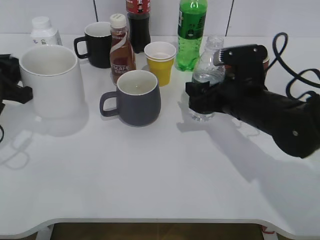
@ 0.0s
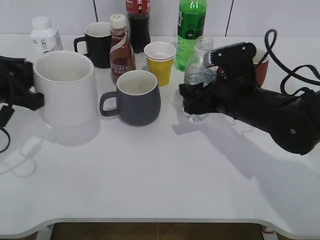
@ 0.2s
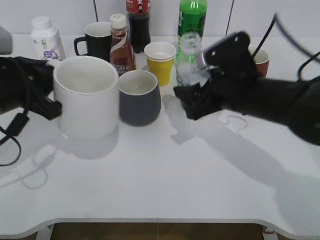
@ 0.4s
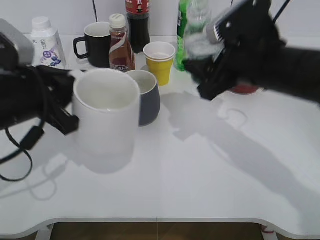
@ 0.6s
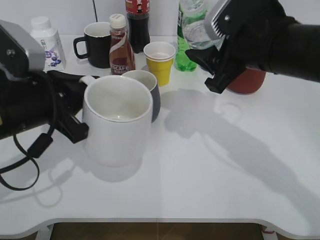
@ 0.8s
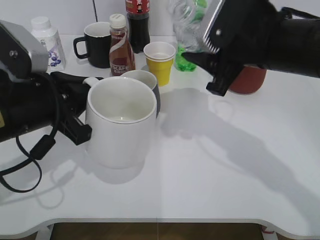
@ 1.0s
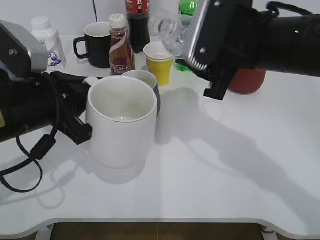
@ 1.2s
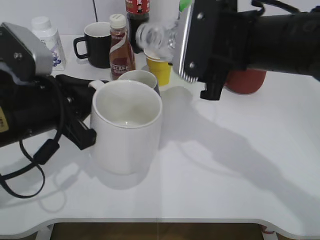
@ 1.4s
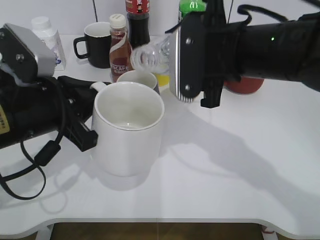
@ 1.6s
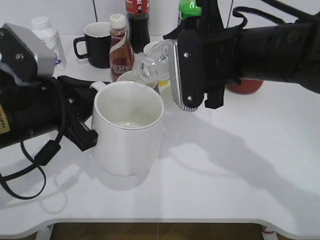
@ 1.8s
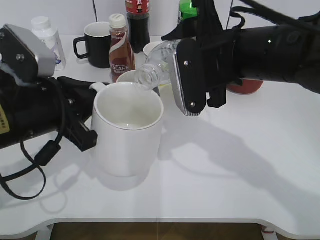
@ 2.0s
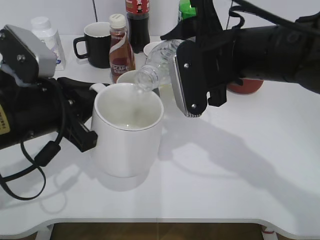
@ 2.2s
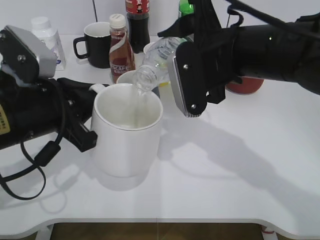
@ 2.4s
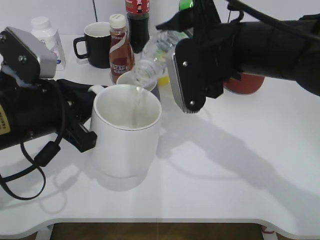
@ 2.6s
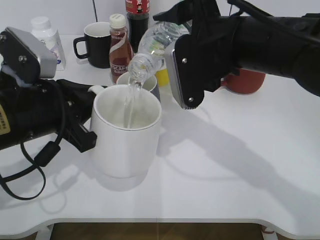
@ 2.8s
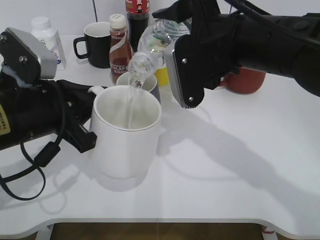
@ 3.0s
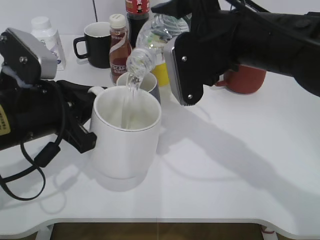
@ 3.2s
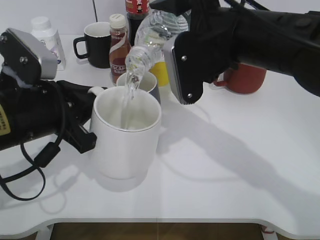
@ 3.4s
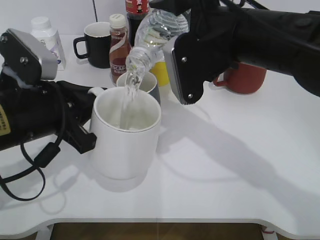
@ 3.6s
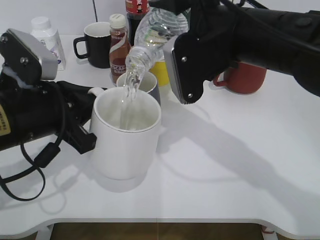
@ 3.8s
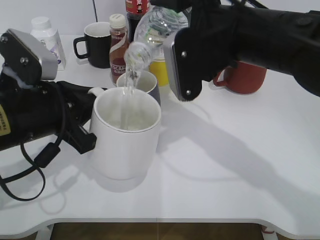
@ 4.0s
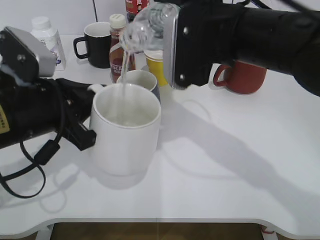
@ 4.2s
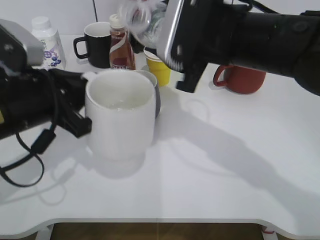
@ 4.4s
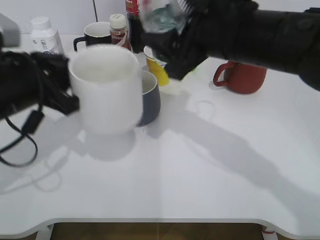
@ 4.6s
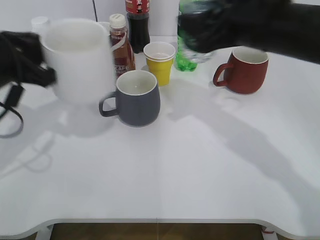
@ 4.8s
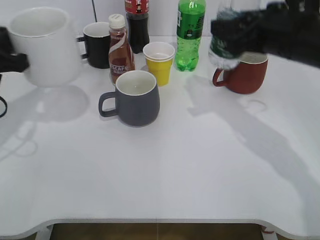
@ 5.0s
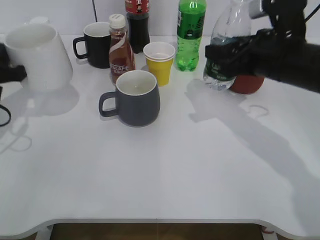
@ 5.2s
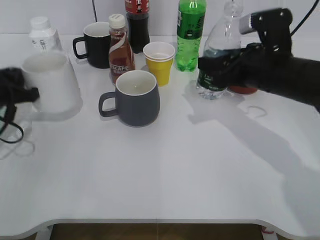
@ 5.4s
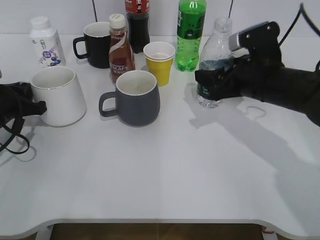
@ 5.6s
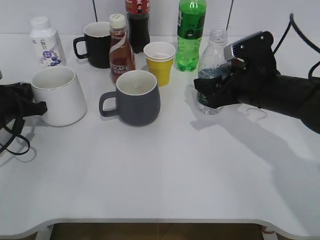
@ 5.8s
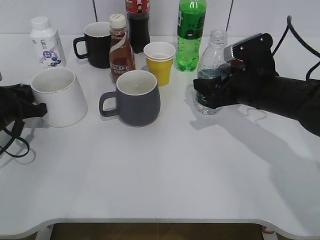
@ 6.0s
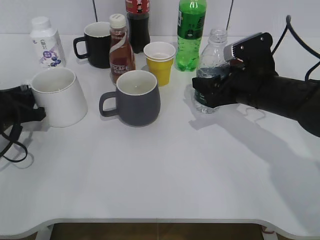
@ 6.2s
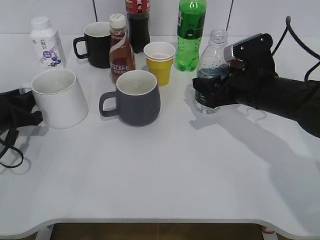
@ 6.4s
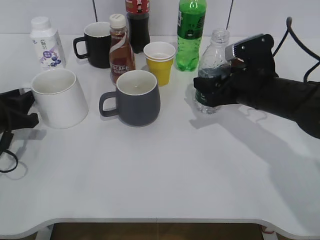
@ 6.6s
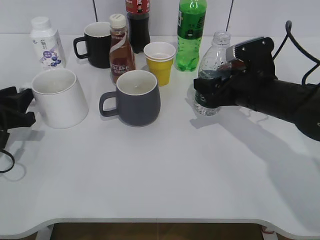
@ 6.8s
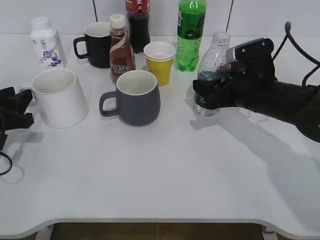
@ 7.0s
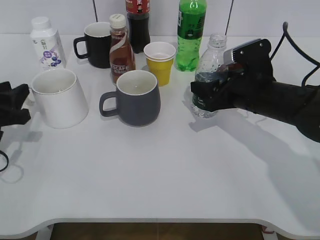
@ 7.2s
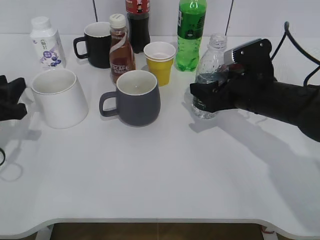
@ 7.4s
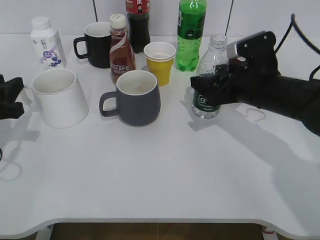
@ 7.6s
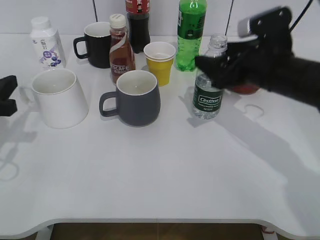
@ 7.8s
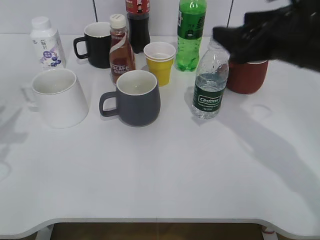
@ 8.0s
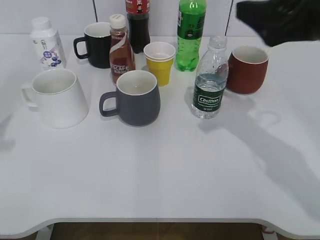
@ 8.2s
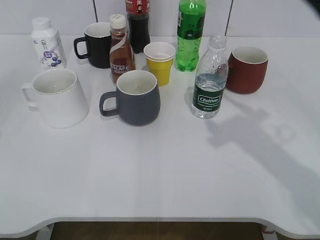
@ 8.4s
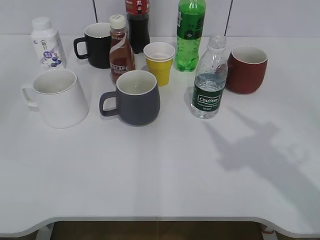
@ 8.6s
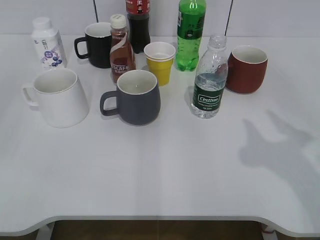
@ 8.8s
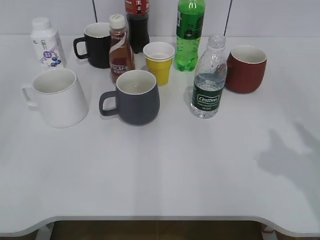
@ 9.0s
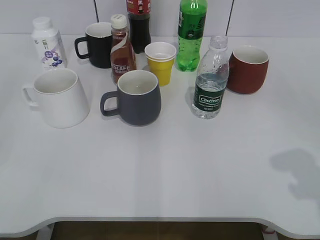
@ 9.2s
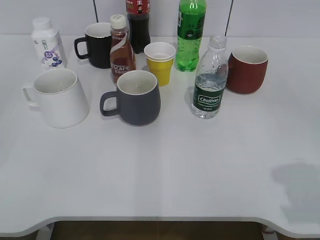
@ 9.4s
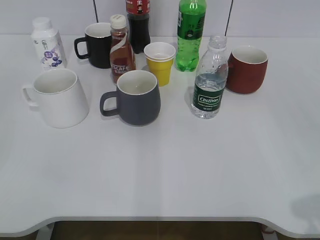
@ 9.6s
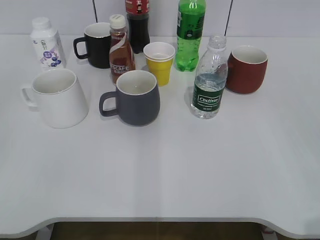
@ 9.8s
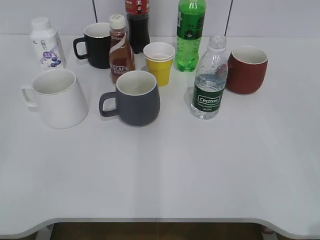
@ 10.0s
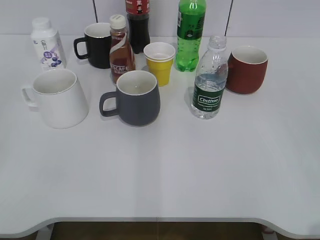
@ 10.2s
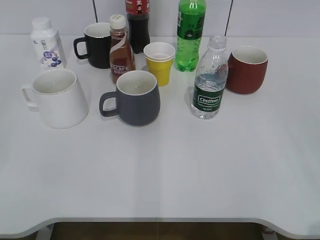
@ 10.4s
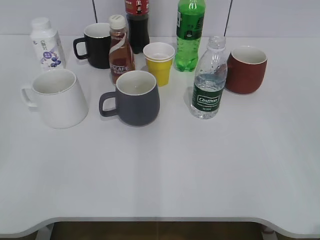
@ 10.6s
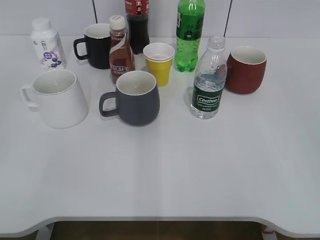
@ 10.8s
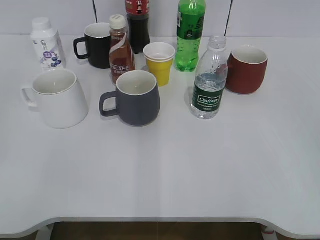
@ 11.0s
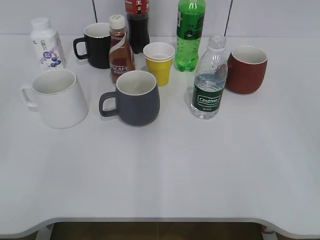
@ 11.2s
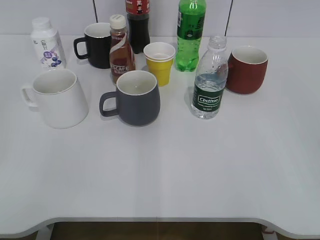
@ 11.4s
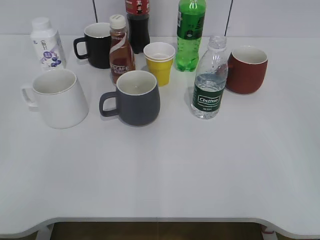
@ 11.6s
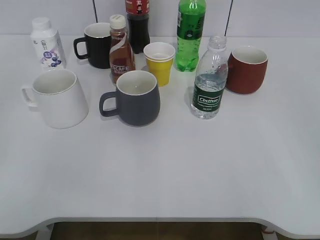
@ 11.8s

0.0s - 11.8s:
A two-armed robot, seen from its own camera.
Step, 0.2s - 4.2s: Pour the water from bottle to cup with right gripper.
Step, 4.6s - 4.8s: Place the white cup on the table with left gripper.
Step, 5.0s - 7.6s: Place the water bottle on the table with right gripper.
0.0s - 1.4s: The left gripper shifts about 15 cm to the right and backward. The right gripper moves upward, some 10 cm, and closes up.
4.4s - 6.0s: The left gripper shifts roughly 20 cm to the left, downward and forward. The right gripper travels downward, to the right and forward by approximately 15 cm.
6.0s - 7.4s: The right gripper opens, while the left gripper goes some 5 cm backward, and opens.
7.4s - 8.8s: The right gripper shifts about 25 cm upward, backward and to the right. Meanwhile the left gripper is displaced backward and upward by approximately 30 cm, and opens up.
8.8s - 10.4s: The right gripper travels backward by about 15 cm.

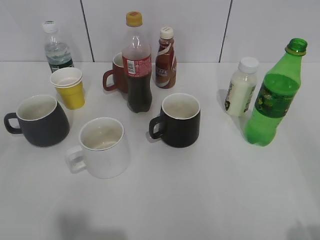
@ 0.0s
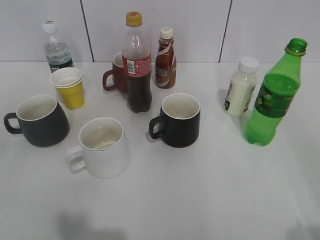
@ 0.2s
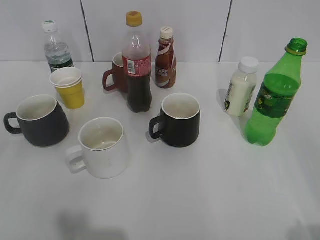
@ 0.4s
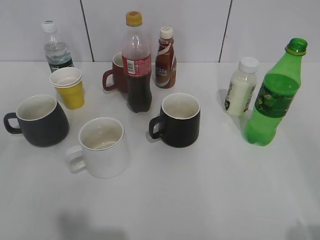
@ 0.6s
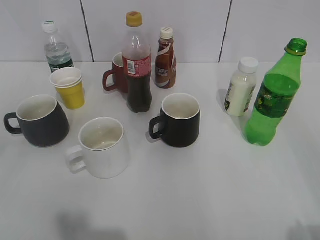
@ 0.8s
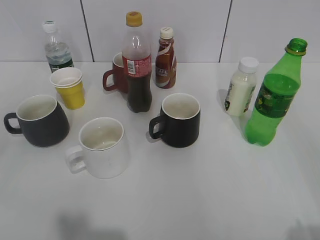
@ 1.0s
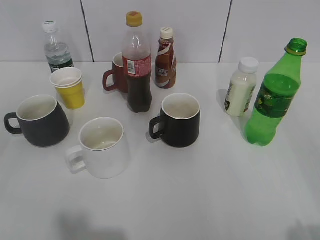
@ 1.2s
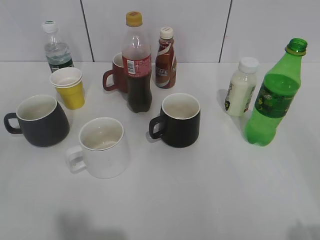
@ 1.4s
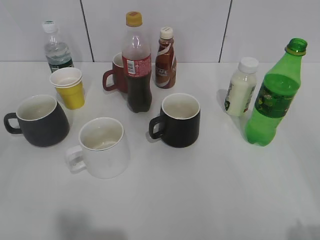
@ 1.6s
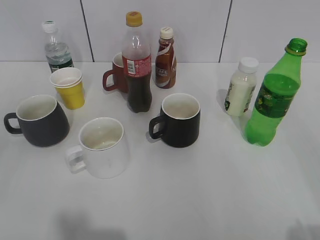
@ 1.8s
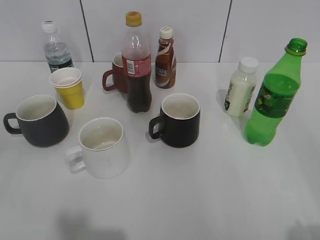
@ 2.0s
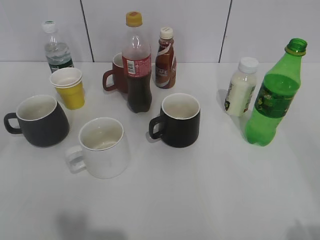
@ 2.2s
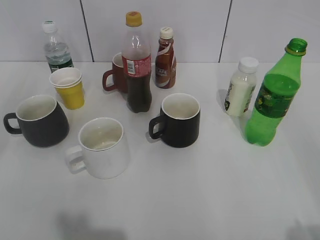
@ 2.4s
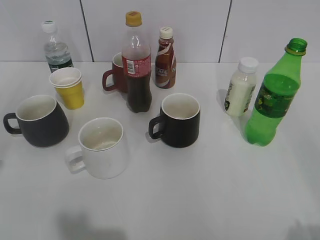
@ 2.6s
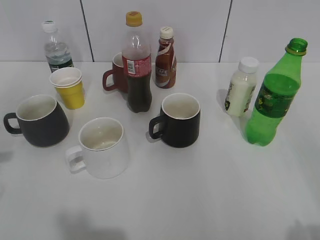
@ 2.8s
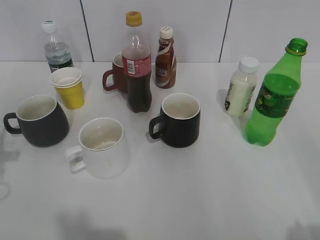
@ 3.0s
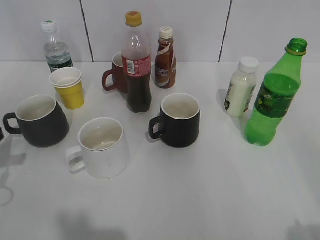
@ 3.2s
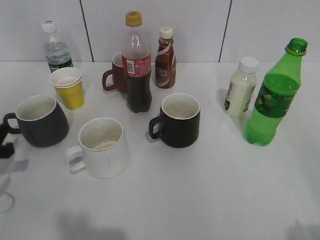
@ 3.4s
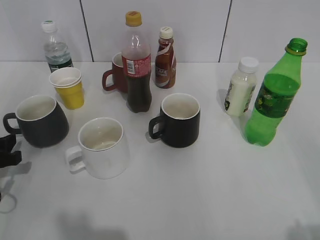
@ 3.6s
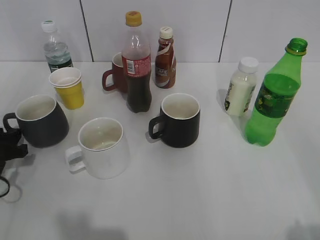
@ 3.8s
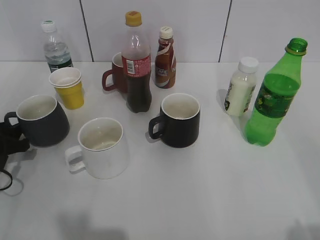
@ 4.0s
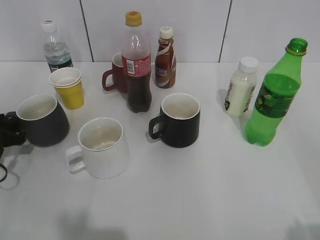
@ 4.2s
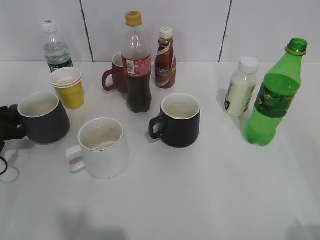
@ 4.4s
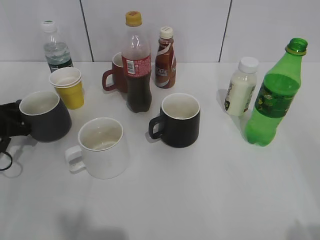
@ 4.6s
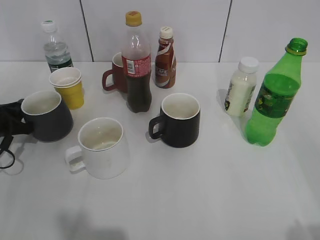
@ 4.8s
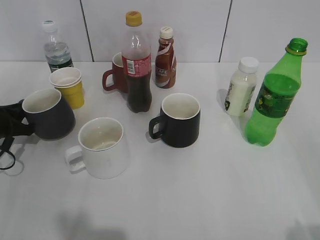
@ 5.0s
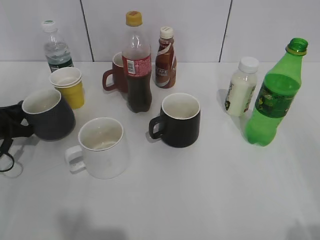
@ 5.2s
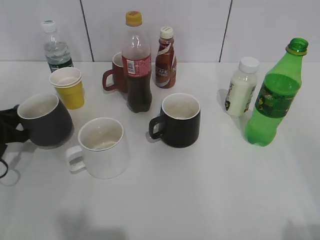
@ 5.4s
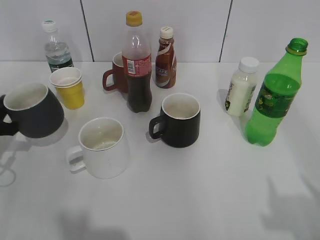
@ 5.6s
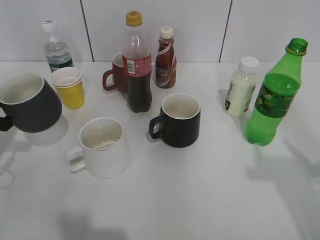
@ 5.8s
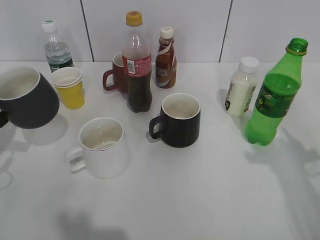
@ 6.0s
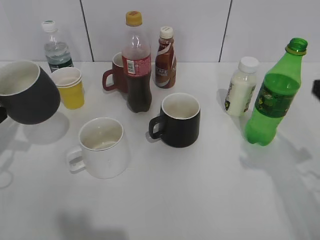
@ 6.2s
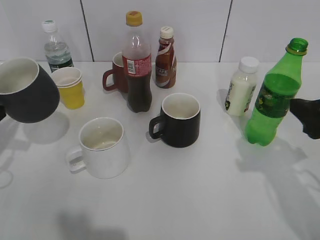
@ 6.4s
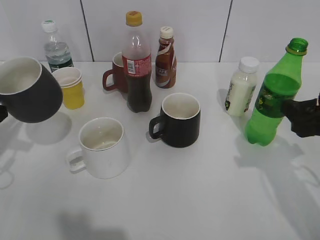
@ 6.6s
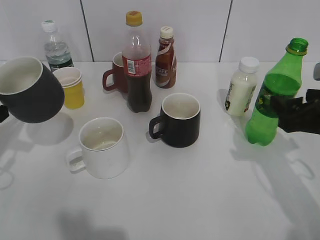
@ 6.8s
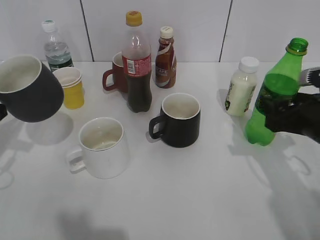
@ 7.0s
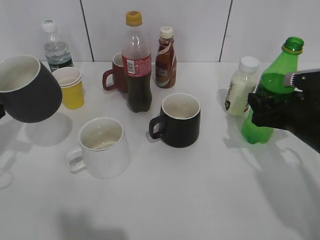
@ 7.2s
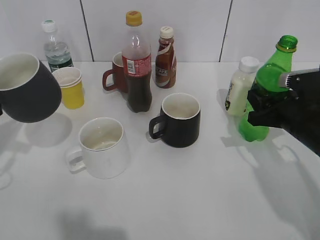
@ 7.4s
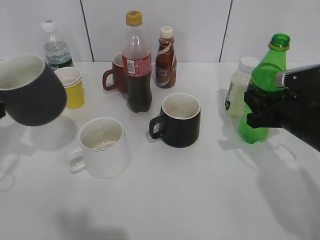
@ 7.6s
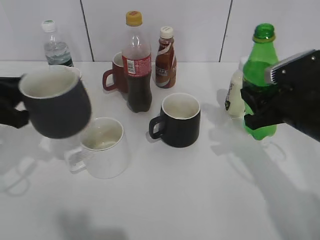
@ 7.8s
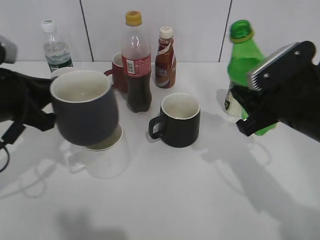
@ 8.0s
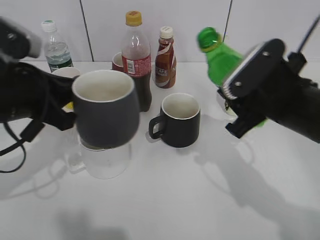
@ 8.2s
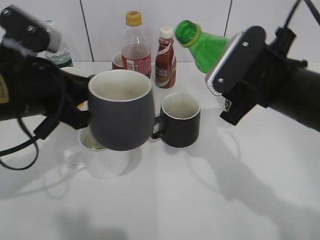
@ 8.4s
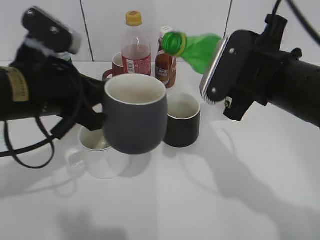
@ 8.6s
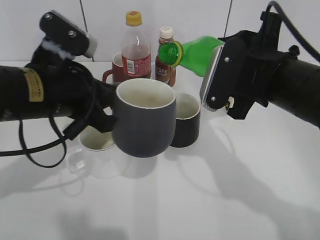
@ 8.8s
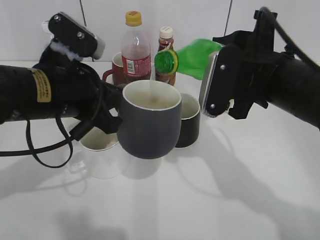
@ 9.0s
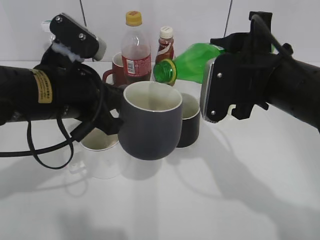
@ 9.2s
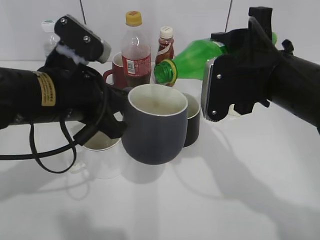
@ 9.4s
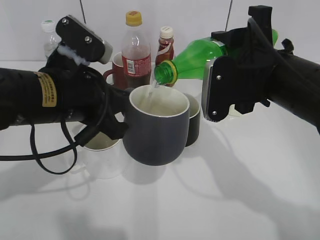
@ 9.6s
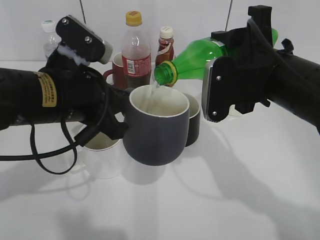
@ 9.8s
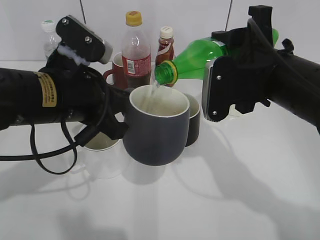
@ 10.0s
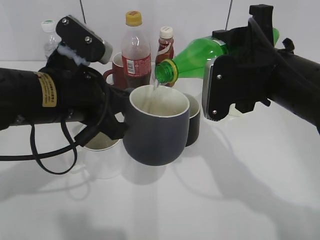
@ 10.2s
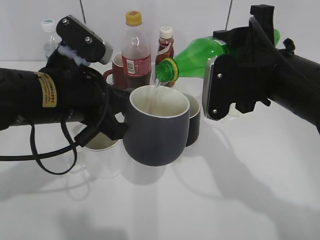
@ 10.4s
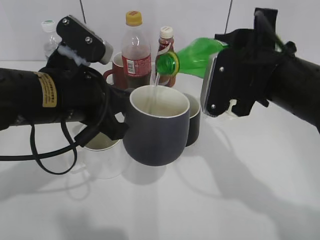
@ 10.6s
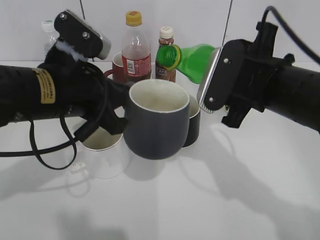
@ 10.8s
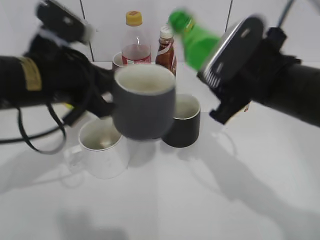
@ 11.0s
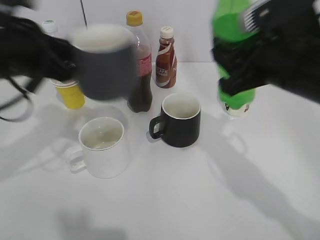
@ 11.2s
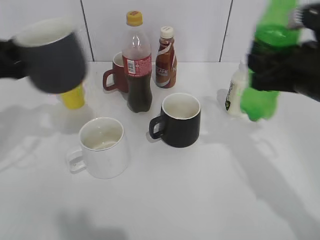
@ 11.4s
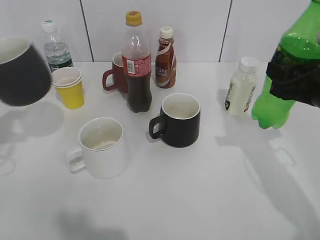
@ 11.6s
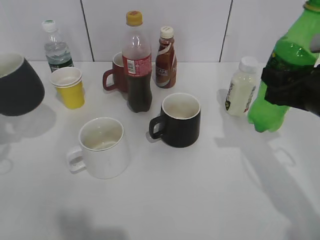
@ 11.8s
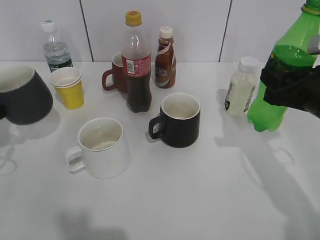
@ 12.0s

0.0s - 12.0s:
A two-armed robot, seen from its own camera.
Step, 3.2s - 4.2s: Grasp the grey cup with left gripper.
Step, 4.6s - 6.0s: Lift the grey cup with left gripper.
Step, 6.2s - 7.2s: Grasp the bottle with sprite with right gripper.
Step, 7.6s - 10.8s: Pour the sprite from bottle to cup with right gripper.
3.0s - 4.4s: The left gripper shifts some 15 cm downward and forward.
4.4s - 6.0s: The right gripper travels forward by some 15 cm. The left gripper heads upward, covering about 5 cm, and closes up.
6.0s - 7.6s: The right gripper heads downward and forward, covering roughly 20 cm, and closes its fingers. The left gripper changes place by about 5 cm.
7.6s - 9.0s: The left gripper travels to the right by some 15 cm, while the right gripper moves upward and to the left, some 15 cm.
9.0s - 10.4s: The grippers move only a little.
10.4s - 12.0s: The right gripper moves to the right, about 10 cm, while the left gripper is displaced to the left by about 20 cm.
